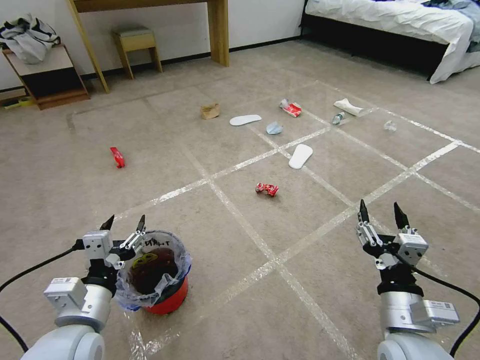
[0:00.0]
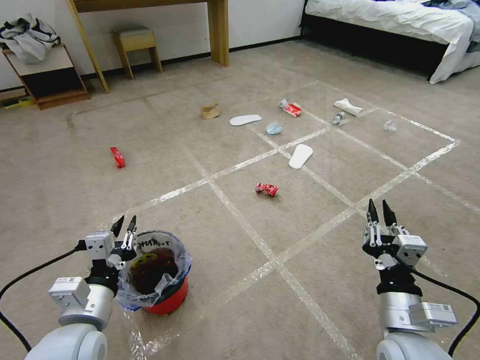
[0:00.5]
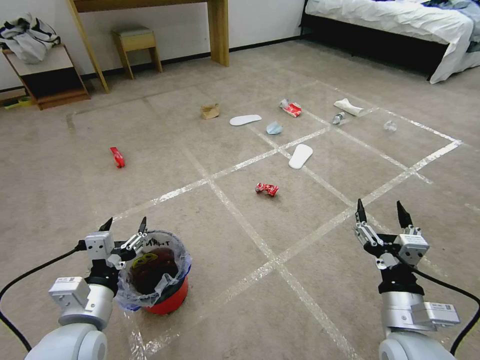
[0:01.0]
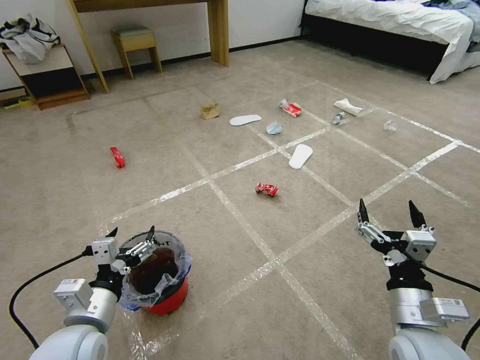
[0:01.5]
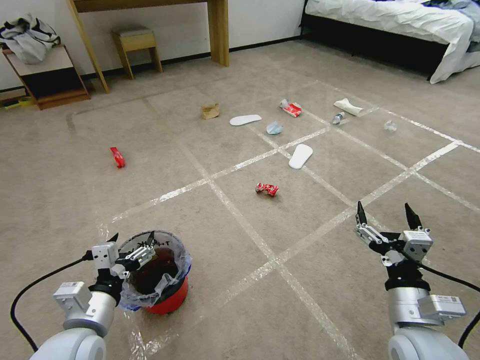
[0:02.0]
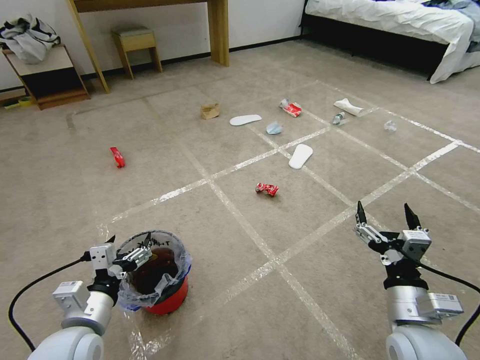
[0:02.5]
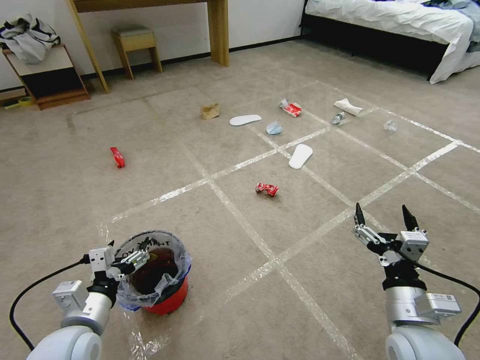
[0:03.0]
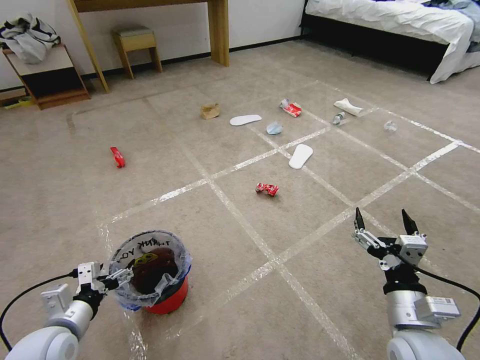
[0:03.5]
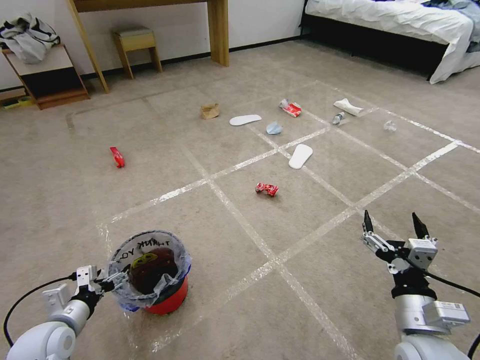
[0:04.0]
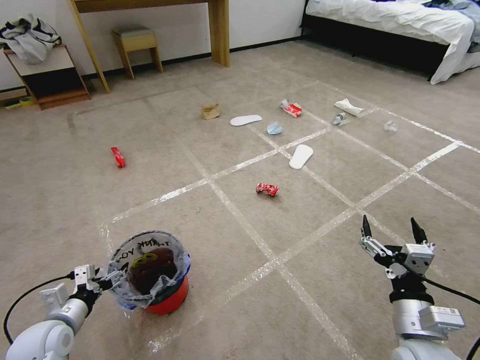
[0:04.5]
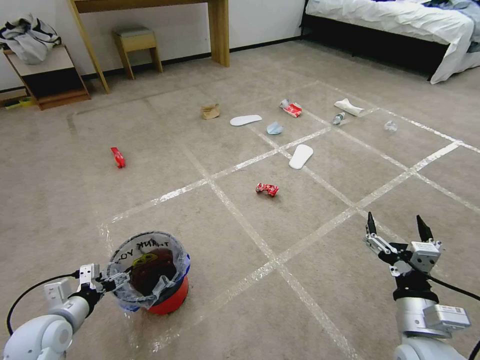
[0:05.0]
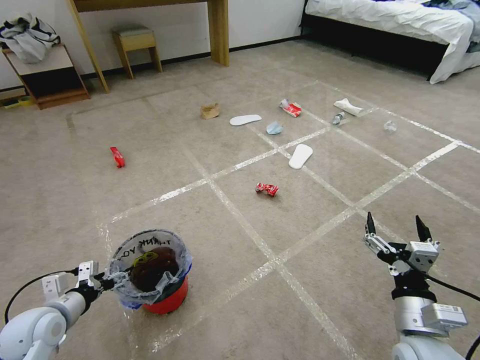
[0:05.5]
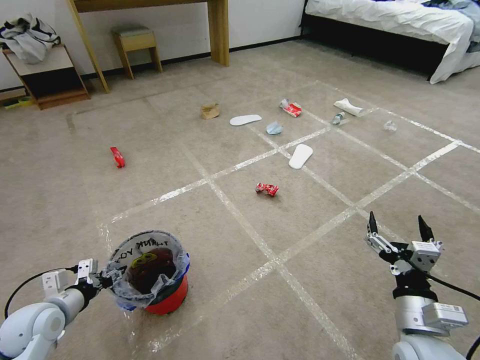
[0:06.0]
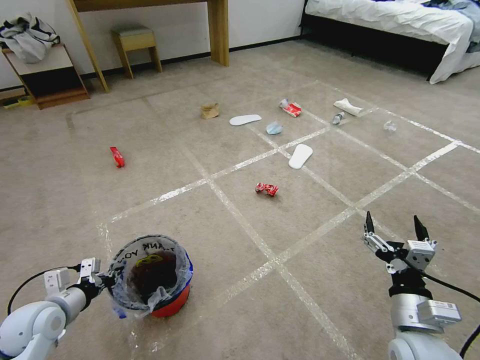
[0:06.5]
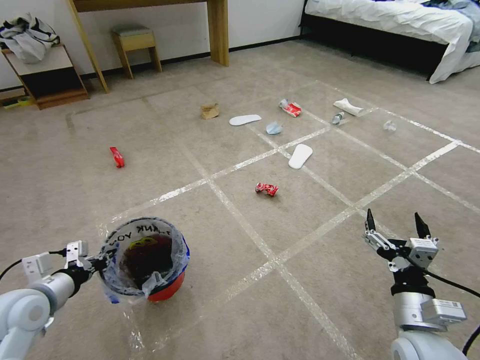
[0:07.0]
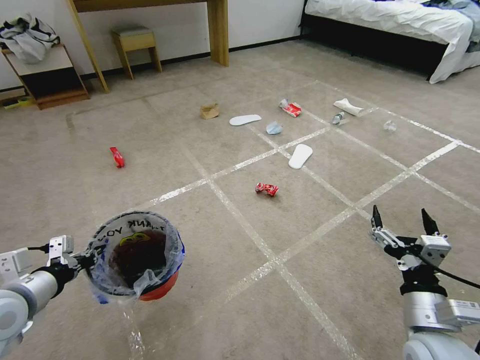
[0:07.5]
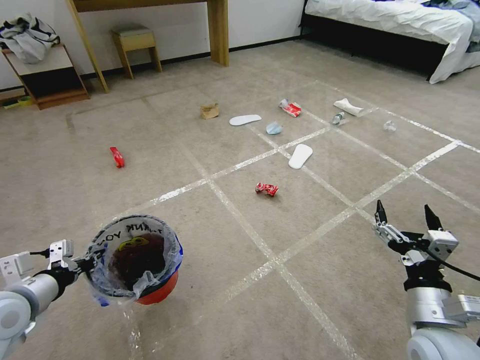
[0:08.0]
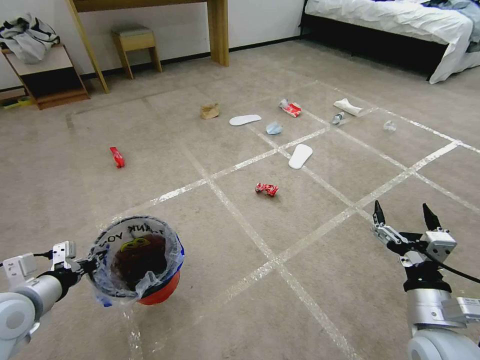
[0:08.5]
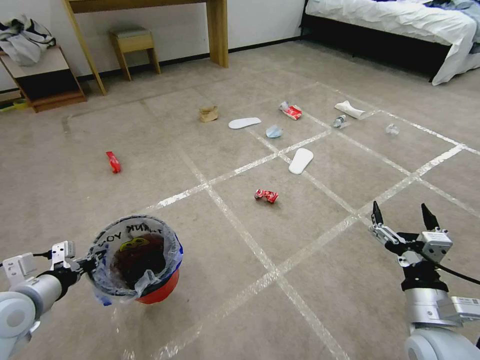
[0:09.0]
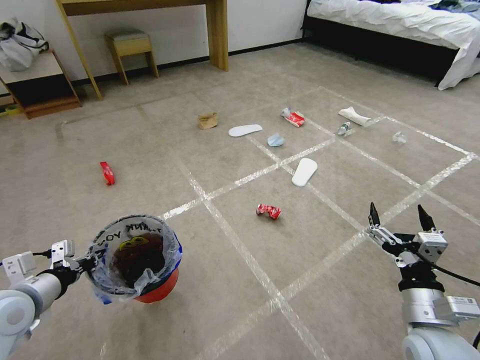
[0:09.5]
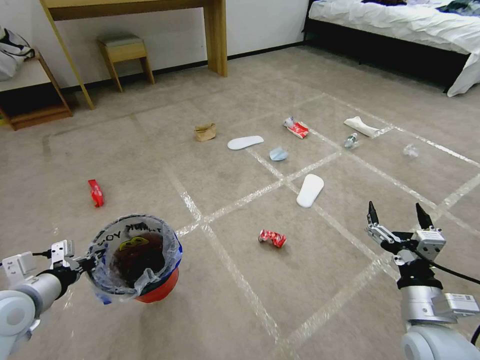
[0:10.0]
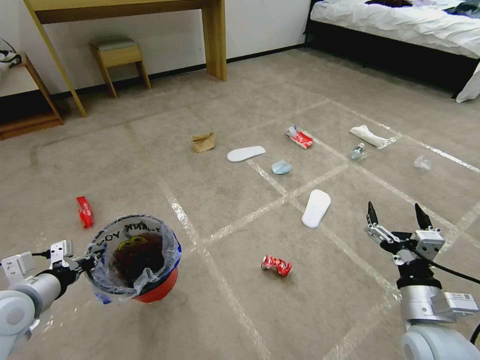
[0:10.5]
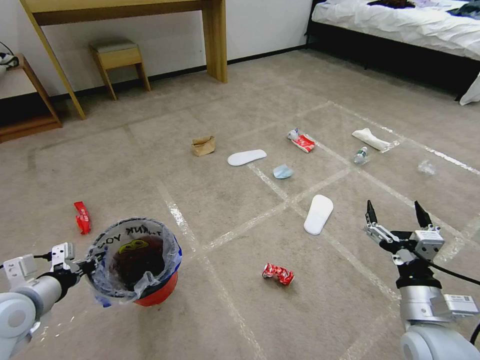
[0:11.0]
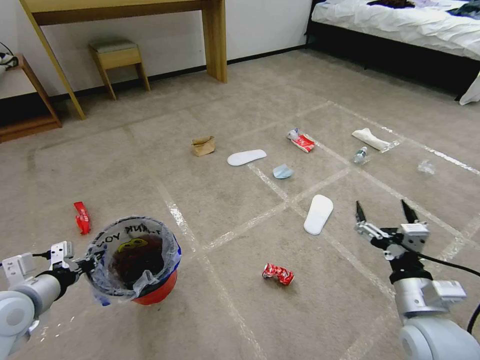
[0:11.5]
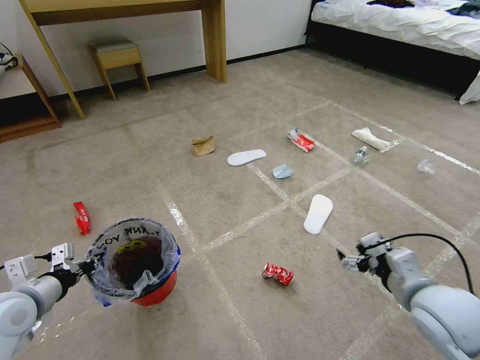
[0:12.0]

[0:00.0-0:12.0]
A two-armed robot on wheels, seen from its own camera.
Task of the whole recording: Pick up the trash bin and place the garbage on the floor into it.
0:02.0 to 0:04.0: The left gripper goes some 15 cm to the left and downward.
0:04.0 to 0:06.0: The left gripper closes its fingers.
0:06.0 to 0:08.0: The left gripper goes some 10 cm upward, and closes.
0:10.0 to 0:12.0: The right gripper moves approximately 5 cm.

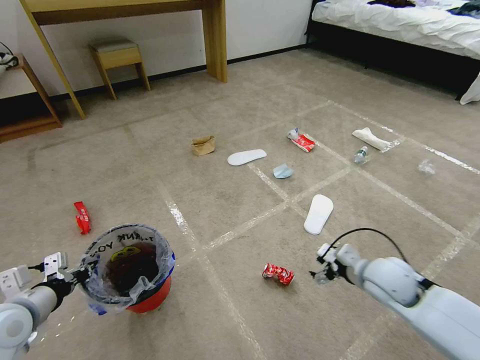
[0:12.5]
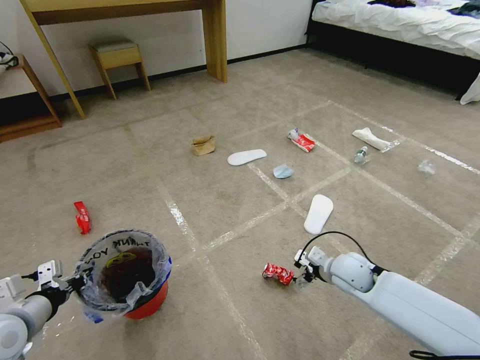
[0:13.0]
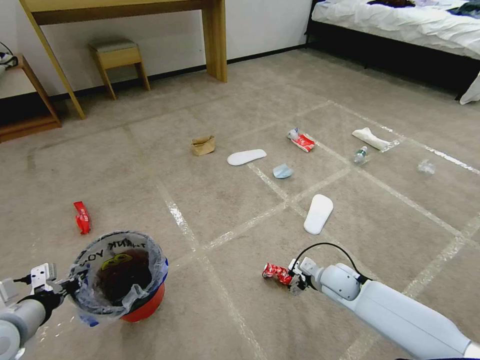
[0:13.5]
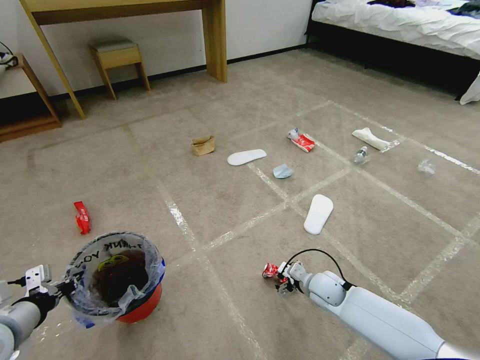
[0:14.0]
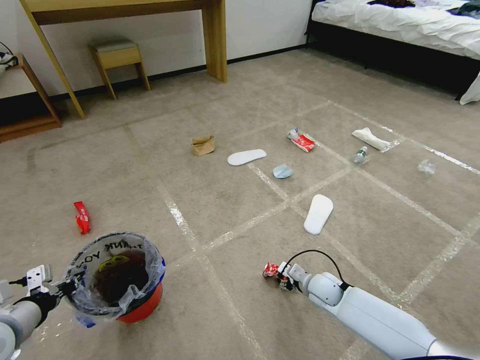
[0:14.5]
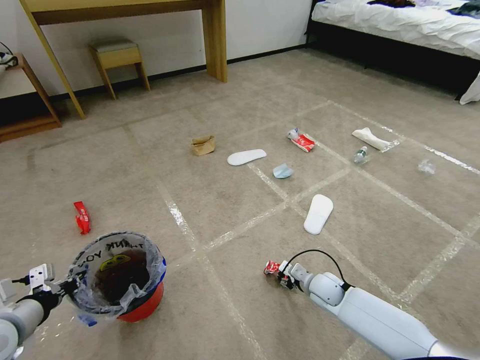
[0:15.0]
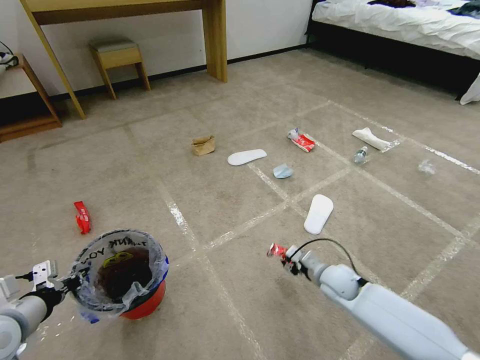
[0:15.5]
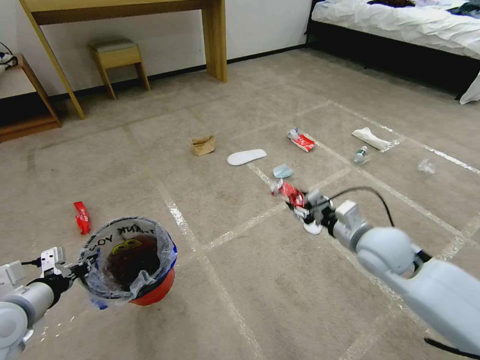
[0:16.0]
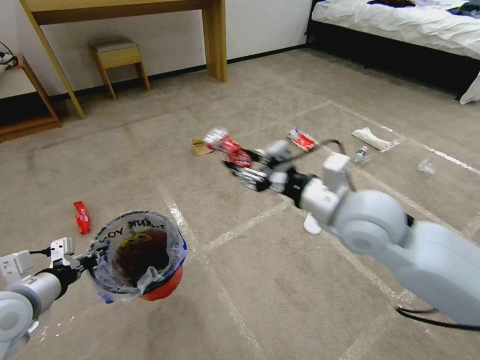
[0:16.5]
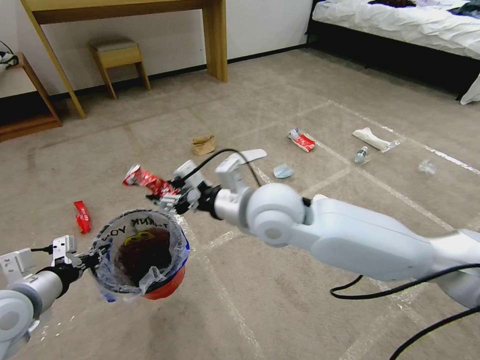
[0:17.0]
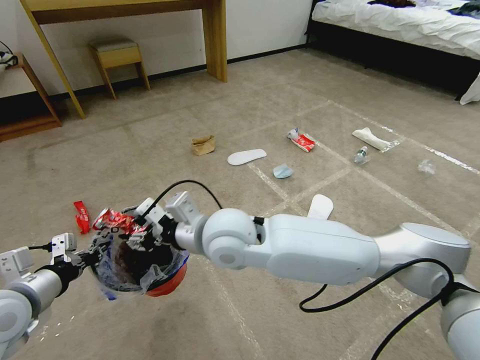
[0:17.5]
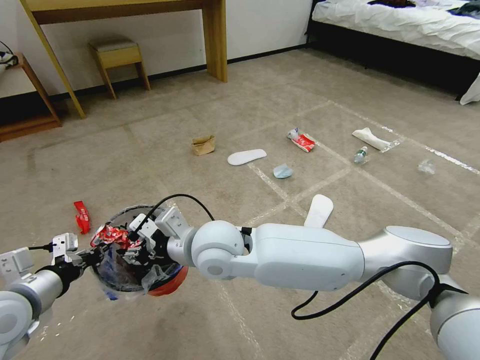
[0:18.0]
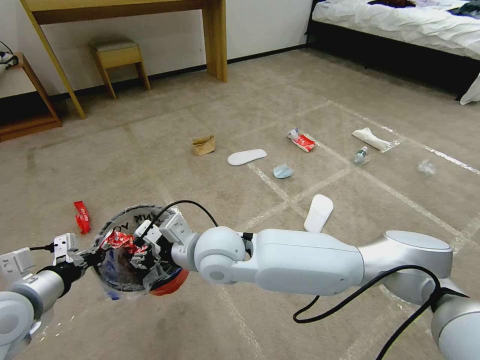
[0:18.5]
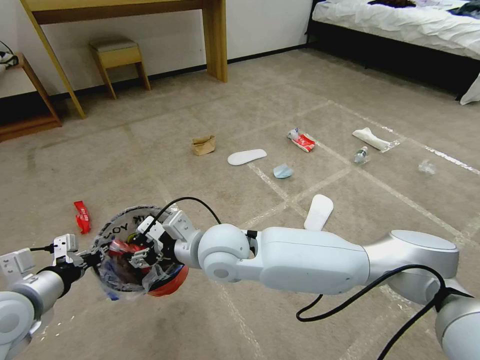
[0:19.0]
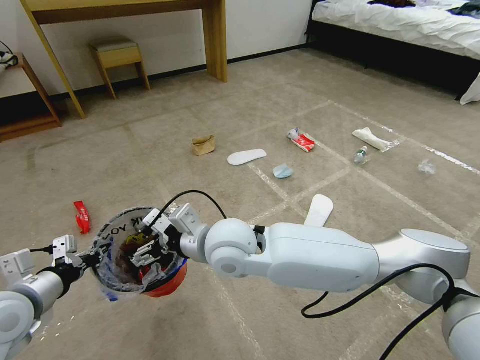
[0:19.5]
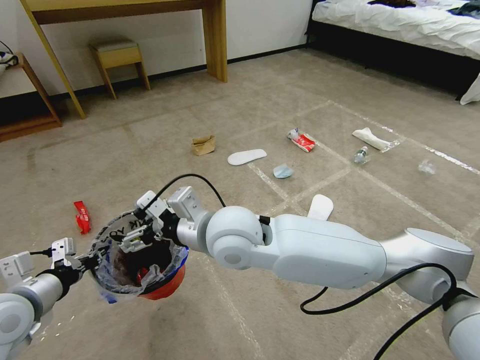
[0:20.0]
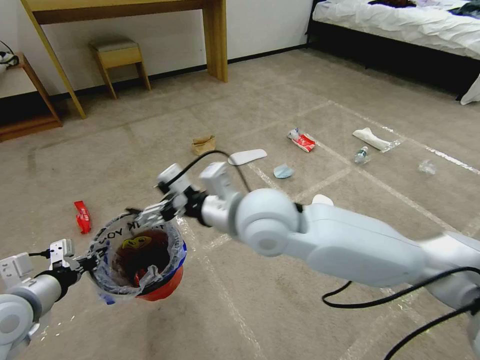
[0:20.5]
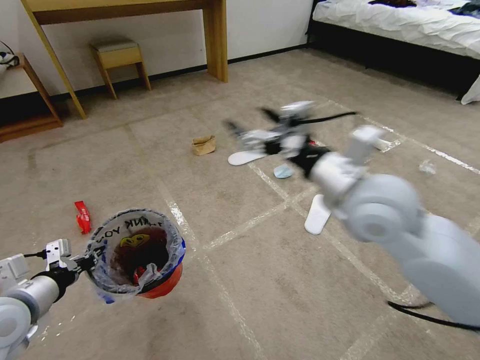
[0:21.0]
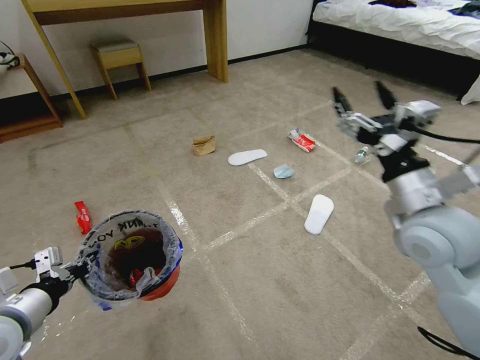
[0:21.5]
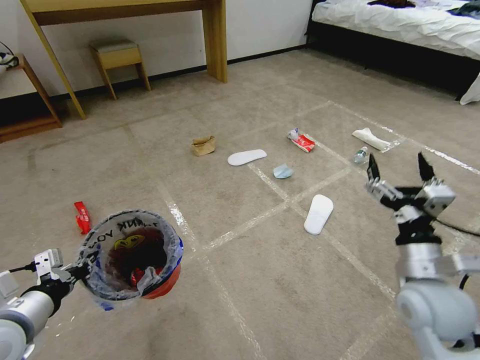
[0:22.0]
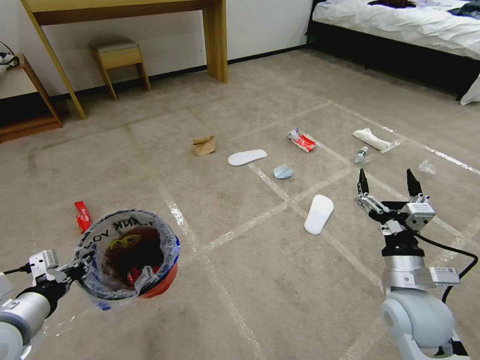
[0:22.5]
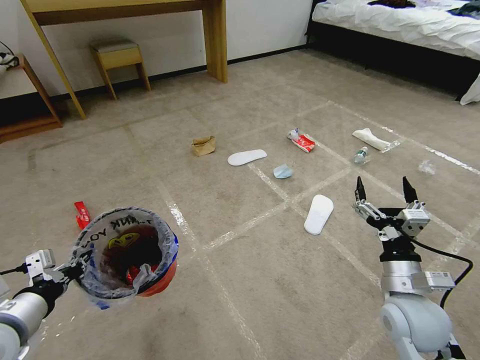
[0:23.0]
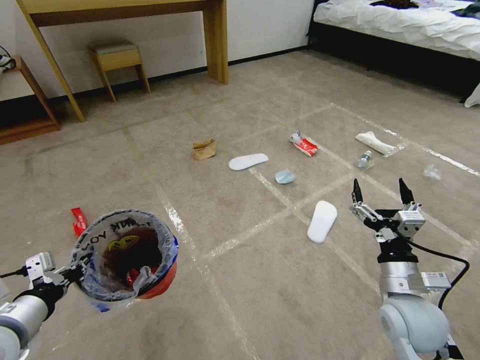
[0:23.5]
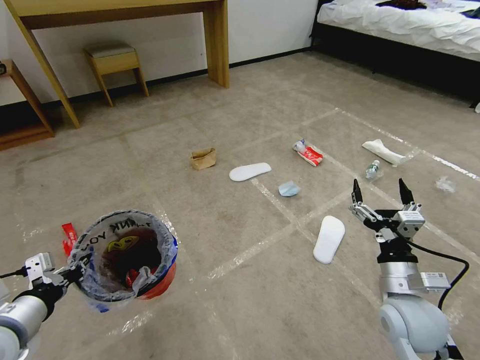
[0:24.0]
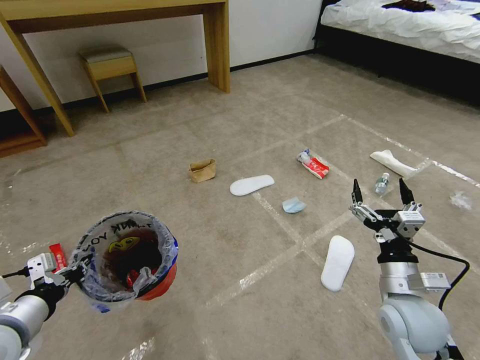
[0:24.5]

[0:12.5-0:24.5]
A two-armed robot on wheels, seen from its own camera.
Task of the whole recording: Pick up the trash bin and place the garbage on the floor into it.
0:12.5 to 0:14.5: The right gripper moves downward, about 15 cm.
0:14.5 to 0:16.5: The left gripper moves approximately 5 cm, while the right gripper is displaced upward by approximately 35 cm.
0:16.5 to 0:18.5: The right gripper heads to the left and downward, covering roughly 25 cm.
0:18.5 to 0:20.5: The right gripper heads upward and to the right, covering about 15 cm, and opens up.
0:20.5 to 0:22.5: The right gripper shifts some 30 cm to the right and downward.

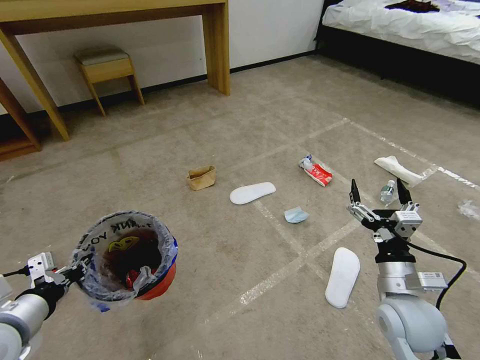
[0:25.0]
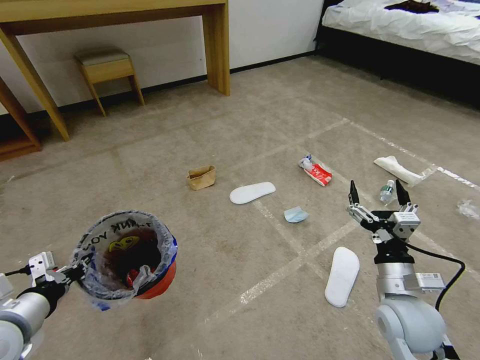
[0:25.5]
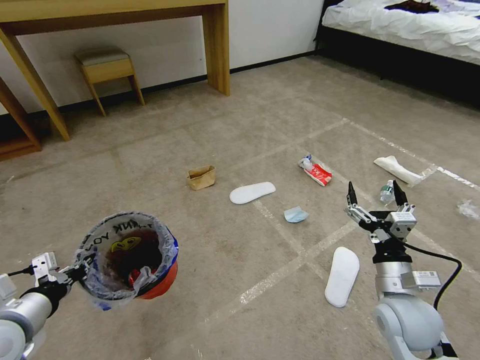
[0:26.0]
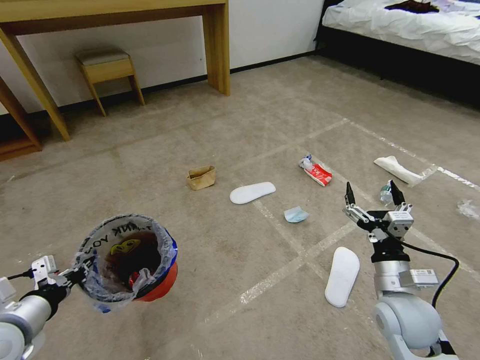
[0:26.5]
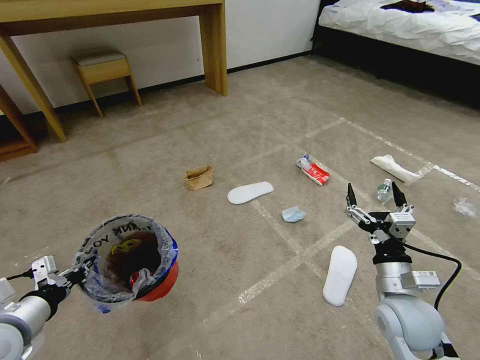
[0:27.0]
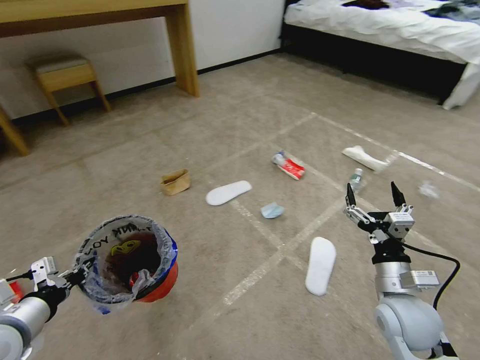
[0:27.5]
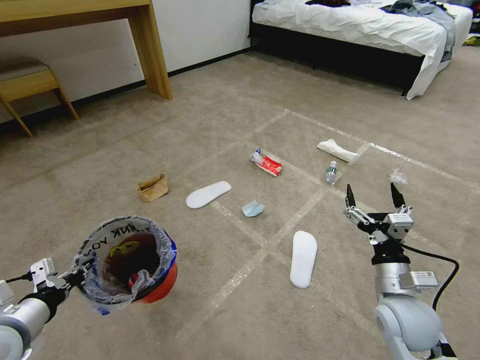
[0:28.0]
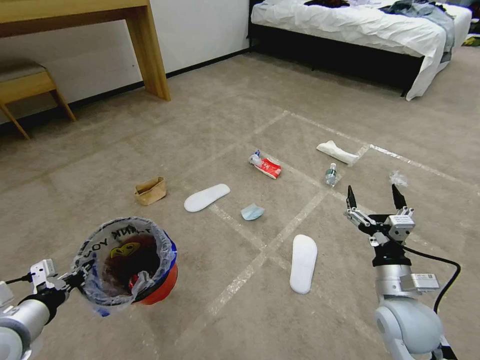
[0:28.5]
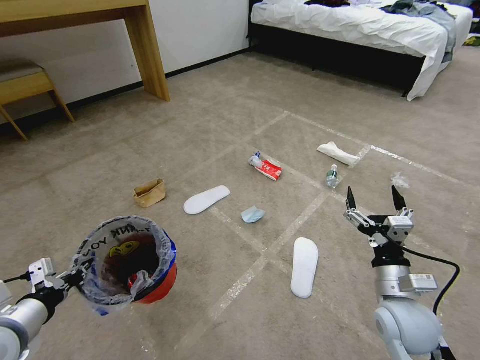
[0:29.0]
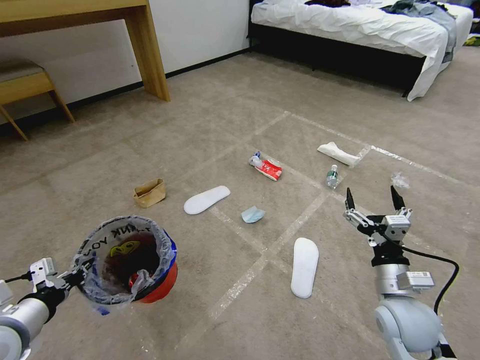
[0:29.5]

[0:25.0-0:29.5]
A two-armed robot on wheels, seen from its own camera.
Task of the whole recording: Pick up the trash bin and place the garbage on the floor into it.
0:25.0 to 0:27.0: The grippers stay close to where they were, moving slightly.
